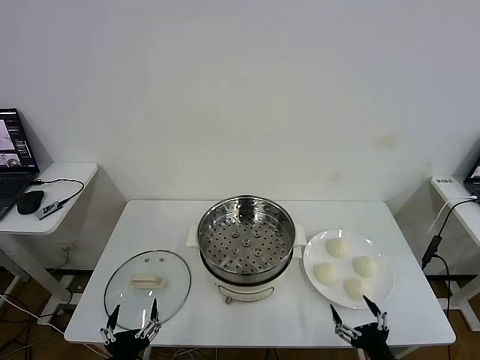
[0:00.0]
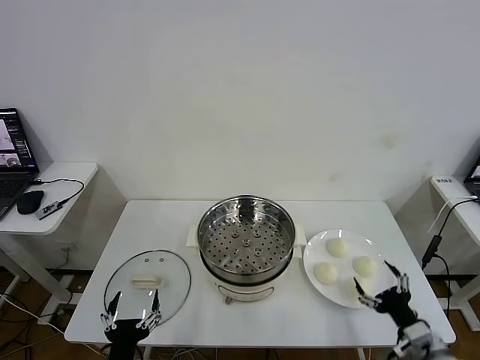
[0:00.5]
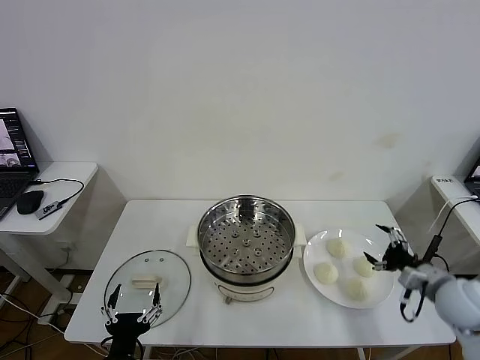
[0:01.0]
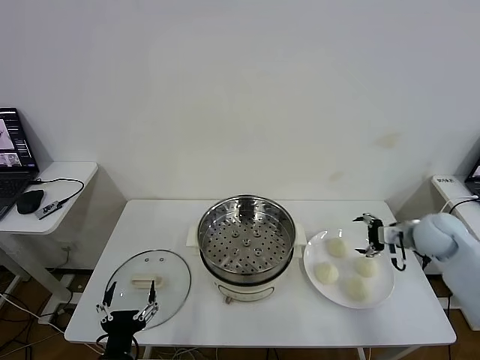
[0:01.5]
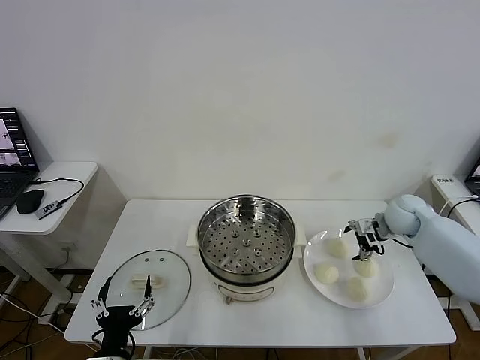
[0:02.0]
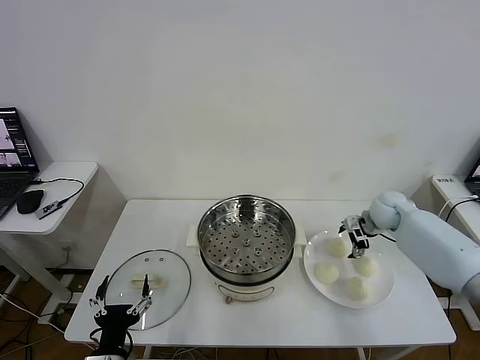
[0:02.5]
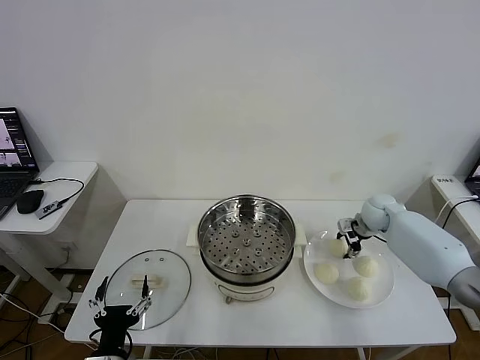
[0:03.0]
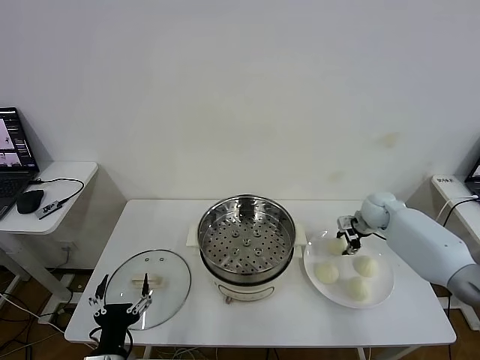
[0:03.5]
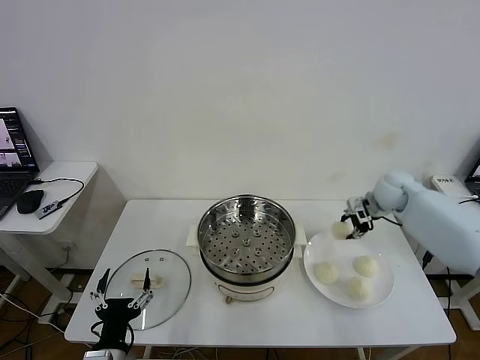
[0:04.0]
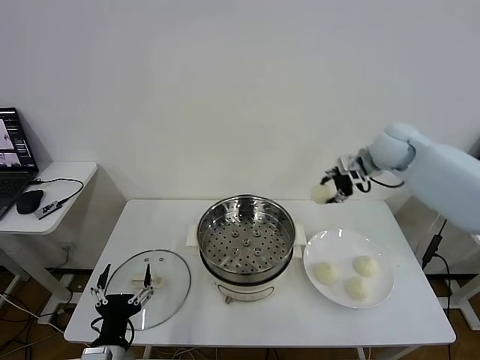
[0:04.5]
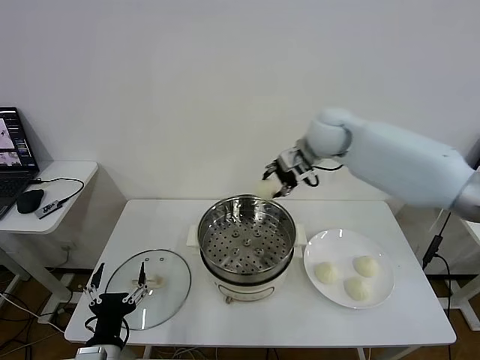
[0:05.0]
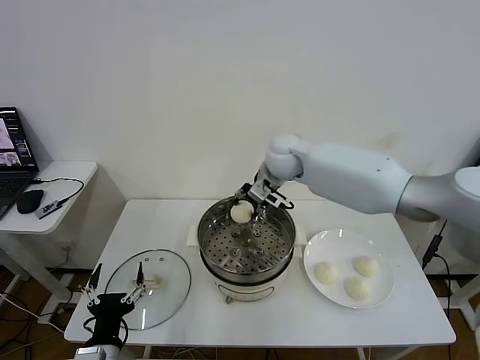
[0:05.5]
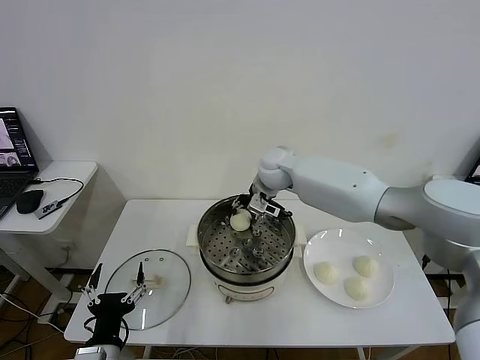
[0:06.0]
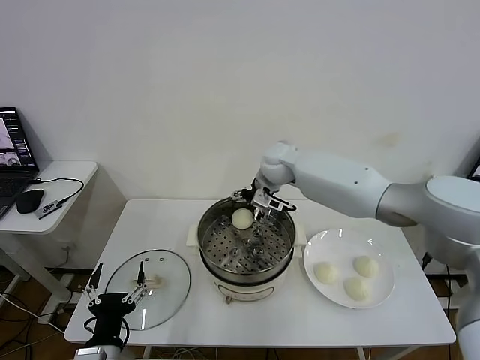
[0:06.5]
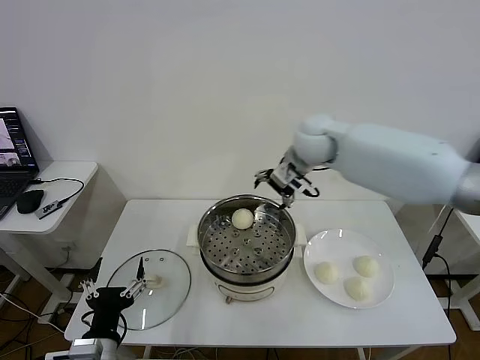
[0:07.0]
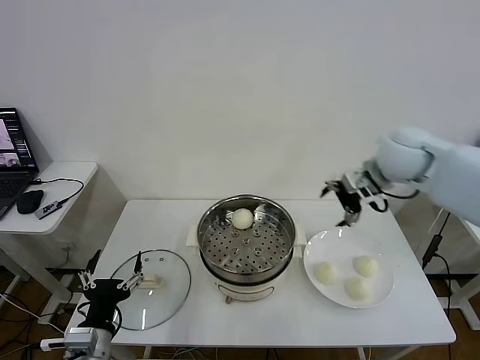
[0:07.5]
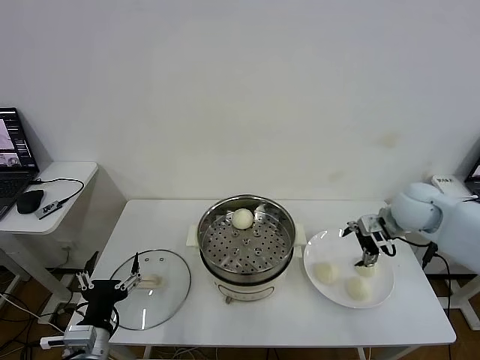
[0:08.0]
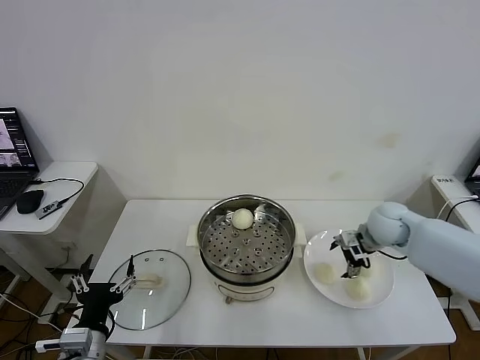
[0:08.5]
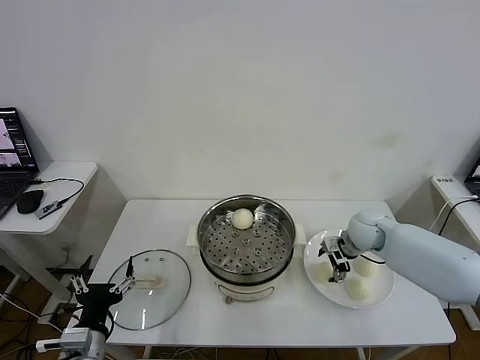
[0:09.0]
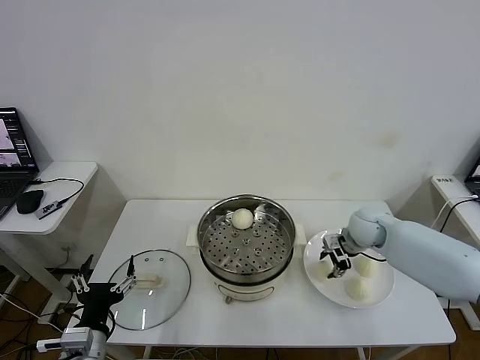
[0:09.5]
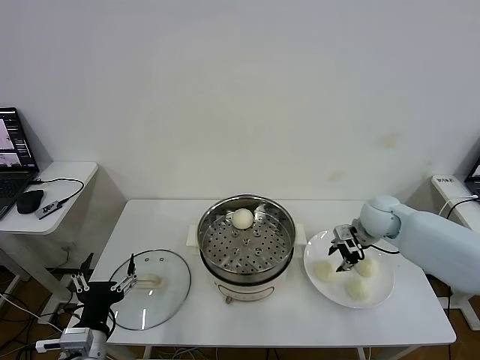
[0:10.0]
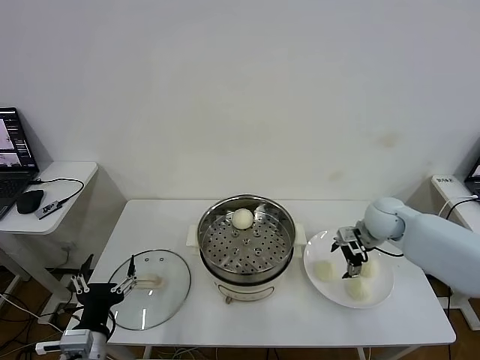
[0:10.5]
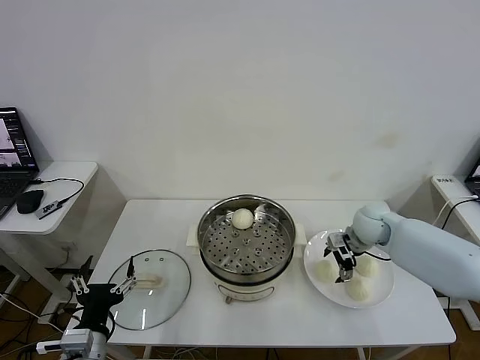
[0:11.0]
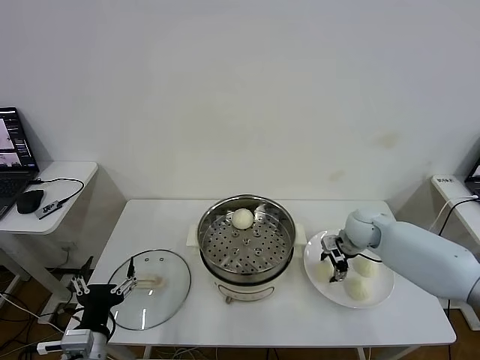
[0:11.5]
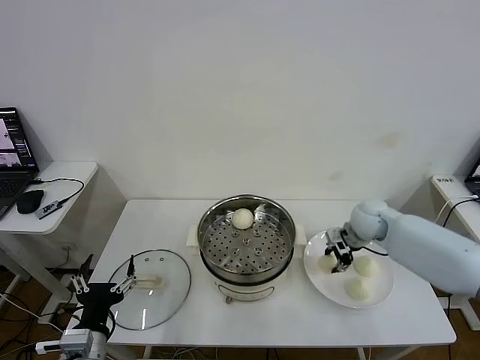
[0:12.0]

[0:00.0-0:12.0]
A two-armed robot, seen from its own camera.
Task of the whole recording: take steamed baozi put them in steamer then cover it.
Step, 0:00.0 to 0:03.0: Grasp the baozi in the plate with right gripper.
Step, 0:03.5 to 0:06.0: Place the baozi on the steamer with right gripper.
Step, 0:06.5 to 0:11.5: Grasp the baozi in the plate with right gripper.
0:02.0 to 0:04.0: The right gripper moves approximately 5 cm, and closes.
0:04.0 to 0:06.0: The right gripper heads to the left, covering some 30 cm.
0:06.0 to 0:08.0: The right gripper is displaced to the right and backward by roughly 30 cm, and opens up.
0:08.0 to 0:10.0: The right gripper is displaced downward by approximately 5 cm, and closes.
0:10.0 to 0:12.0: The right gripper opens, then closes once more.

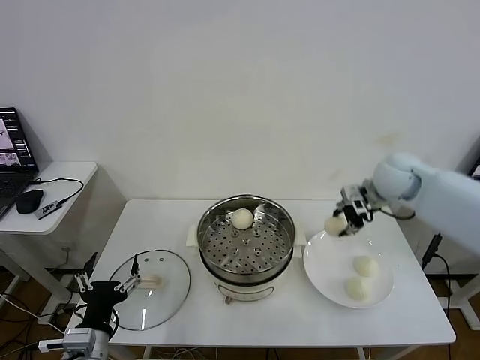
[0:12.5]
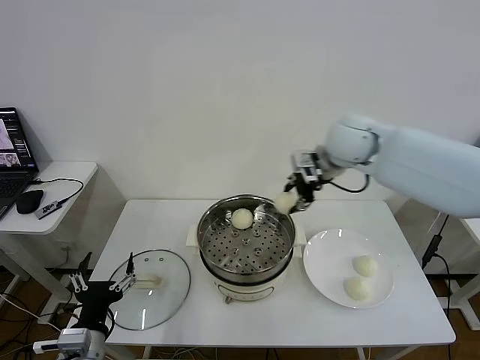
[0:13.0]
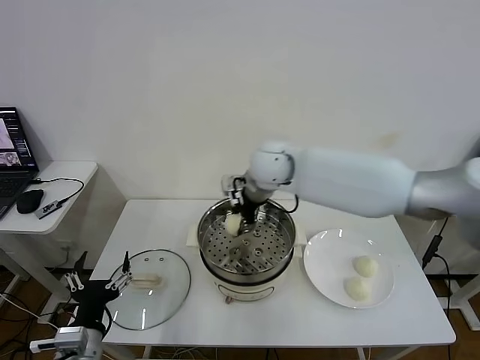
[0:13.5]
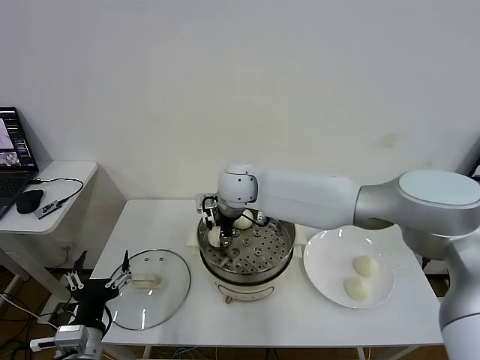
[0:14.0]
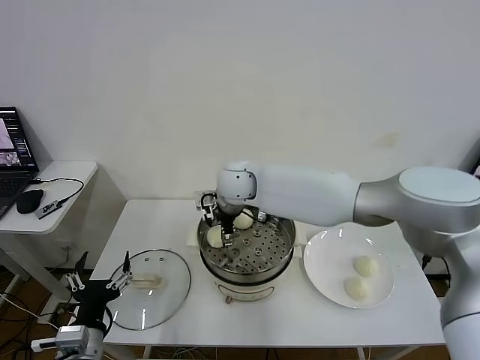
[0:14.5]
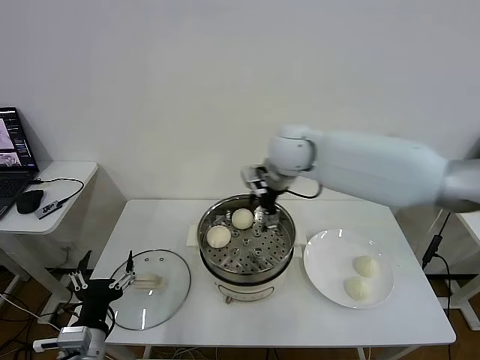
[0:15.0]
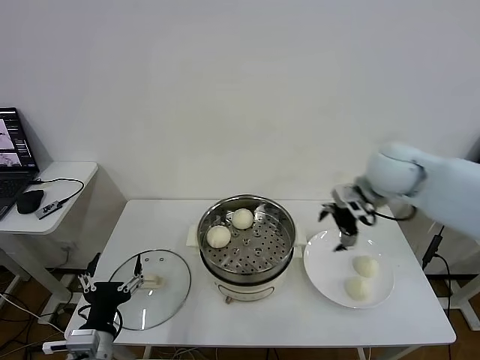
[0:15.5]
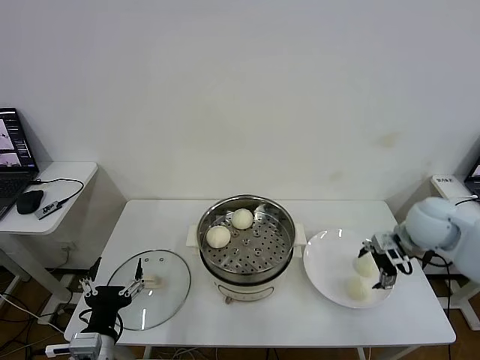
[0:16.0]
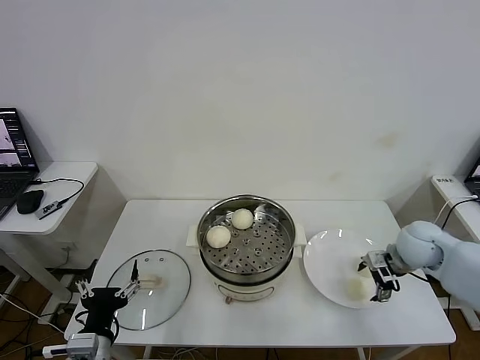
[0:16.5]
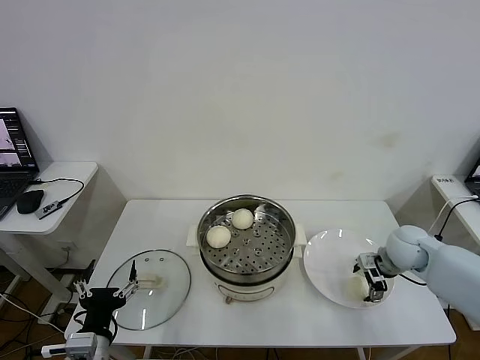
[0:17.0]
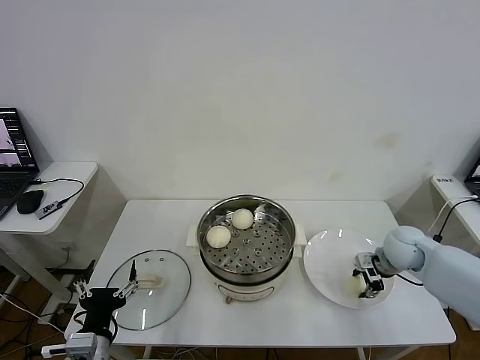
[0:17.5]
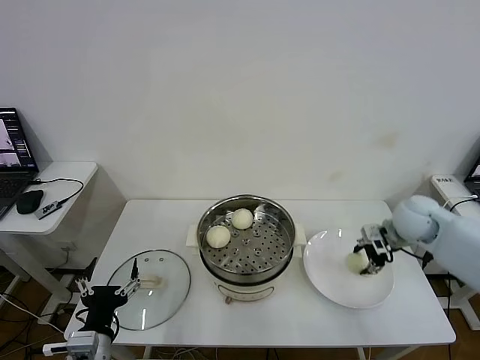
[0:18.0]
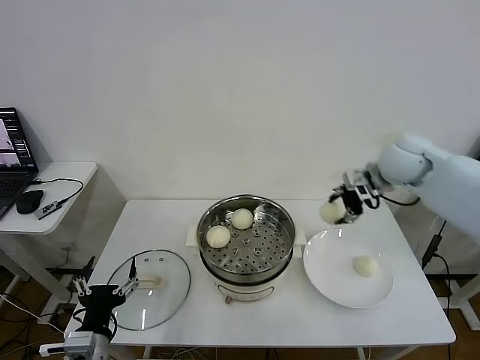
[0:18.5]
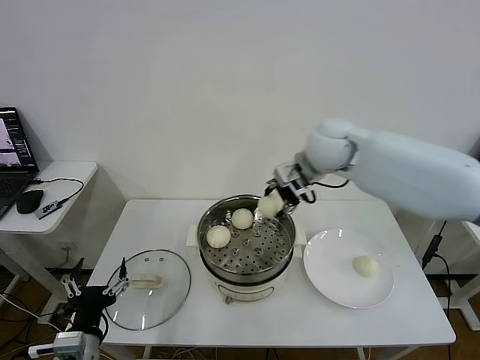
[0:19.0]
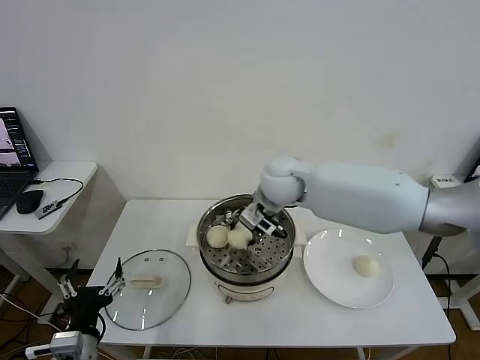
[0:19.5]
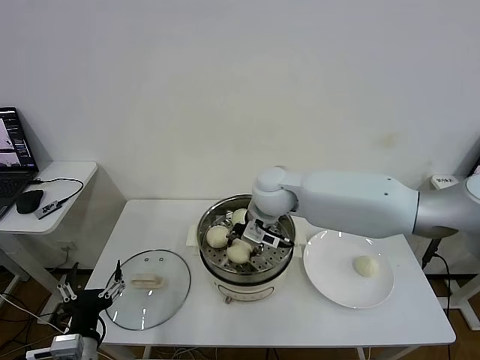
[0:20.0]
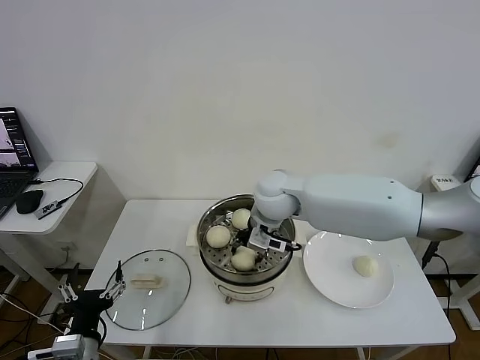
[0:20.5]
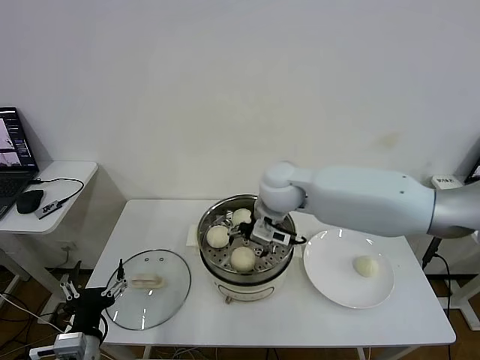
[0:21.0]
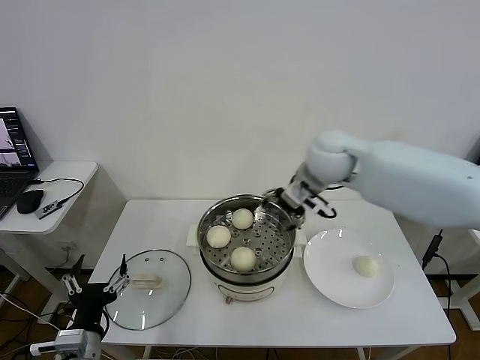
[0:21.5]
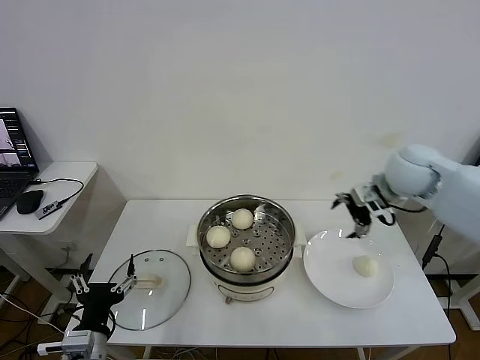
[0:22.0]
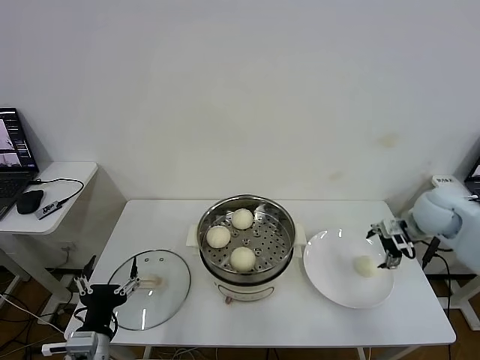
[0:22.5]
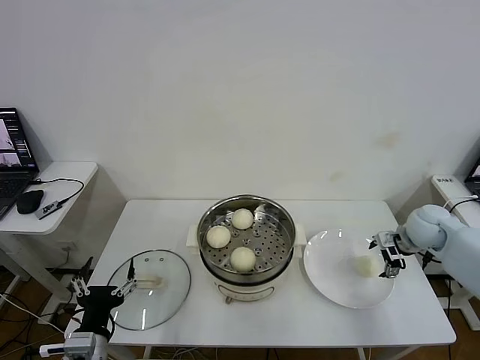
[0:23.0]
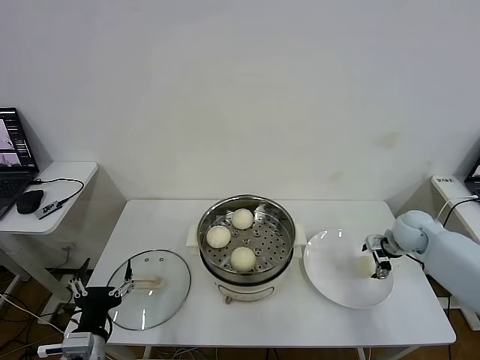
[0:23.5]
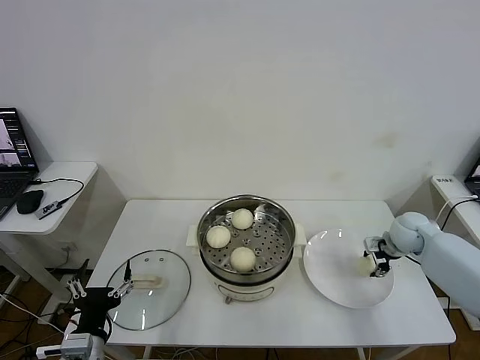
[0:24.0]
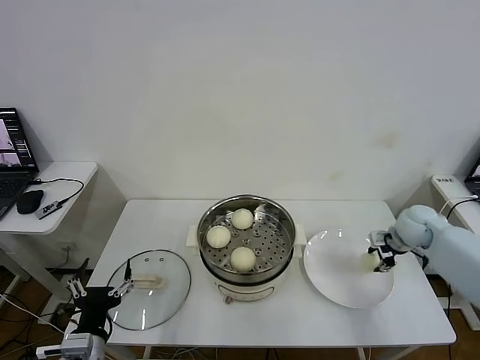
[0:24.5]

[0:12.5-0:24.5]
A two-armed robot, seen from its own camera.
Task of the whole recording: take steamed baozi put them in steamer then cover it.
Step, 0:12.5 to 0:14.0: Place the baozi on the steamer with right gripper.
Step, 0:15.0 to 0:17.5: Grasp the baozi in the plate with right gripper.
Step, 0:18.0 to 0:20.5: Place the baozi on the steamer with right gripper.
Step, 0:21.0 to 0:24.0: Grasp the baozi in the plate with right gripper.
0:12.5 to 0:14.5: The right gripper goes roughly 35 cm to the left, and opens up.
0:14.5 to 0:16.5: The right gripper goes about 40 cm to the right.
0:16.5 to 0:18.5: The right gripper is displaced upward, forward and to the left by approximately 20 cm, and closes up.
0:18.5 to 0:20.5: The right gripper moves to the left, some 25 cm.
0:20.5 to 0:22.5: The right gripper travels to the right by roughly 35 cm, and opens its fingers.
0:22.5 to 0:24.5: The right gripper shifts approximately 10 cm downward, and closes.

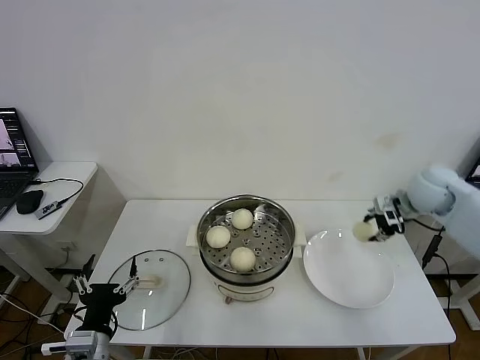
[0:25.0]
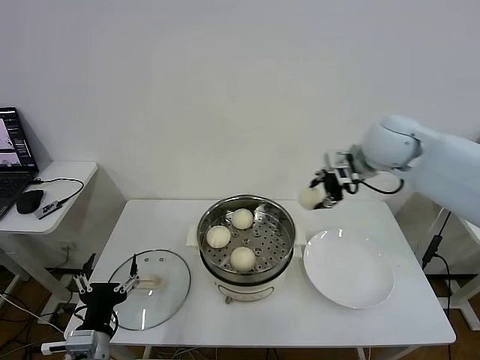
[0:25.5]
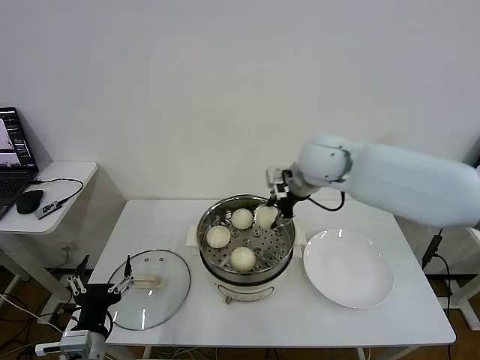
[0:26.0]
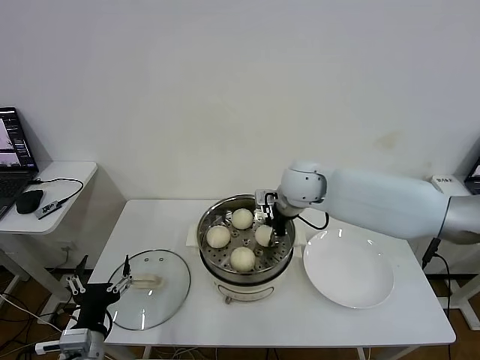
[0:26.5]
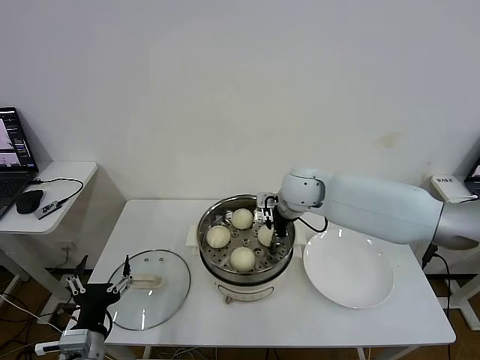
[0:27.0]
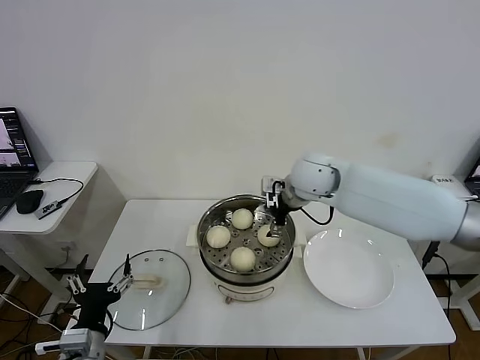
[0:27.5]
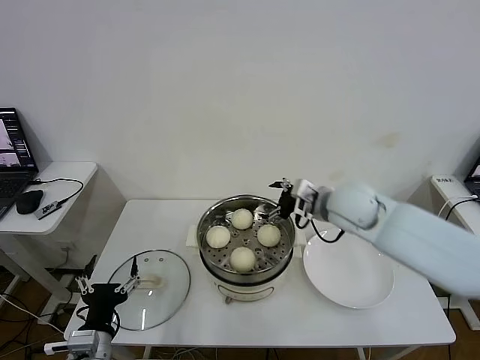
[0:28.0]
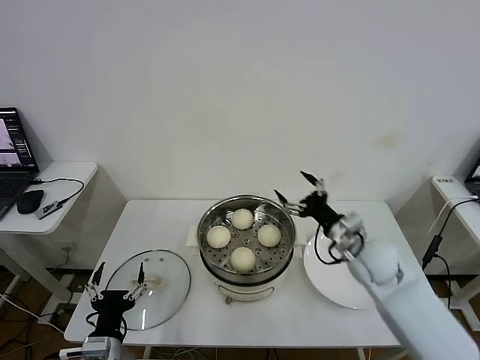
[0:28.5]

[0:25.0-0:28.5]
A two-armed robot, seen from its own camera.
Task of the whole recording: take steamed baozi put them in steamer then cover it.
Step, 0:25.0 to 0:27.0: Place the baozi on the steamer with right gripper.
0:25.0 to 0:27.0: The right gripper travels to the left by about 30 cm.
0:27.0 to 0:28.5: The right gripper heads to the right, backward and downward, covering some 20 cm, and opens.
